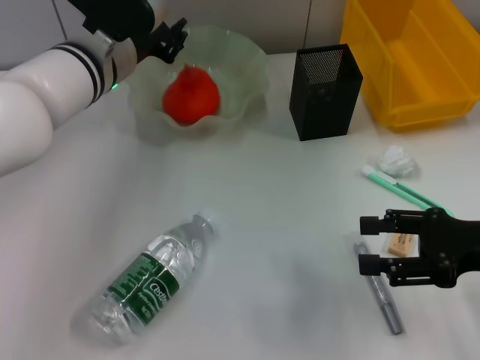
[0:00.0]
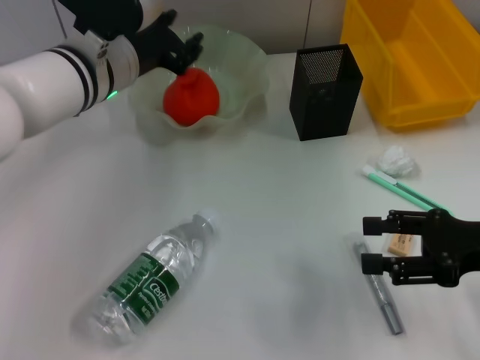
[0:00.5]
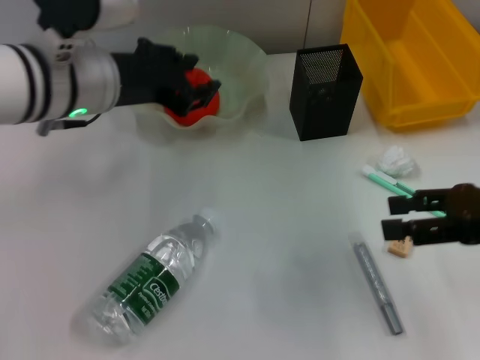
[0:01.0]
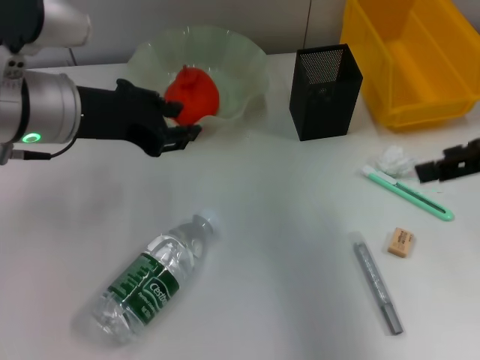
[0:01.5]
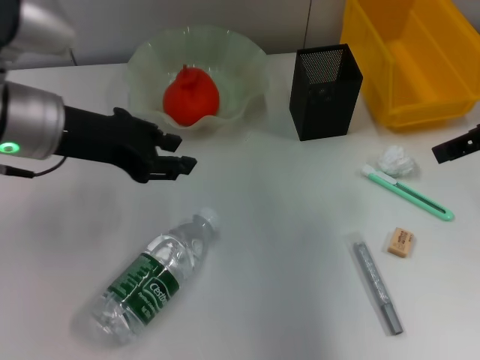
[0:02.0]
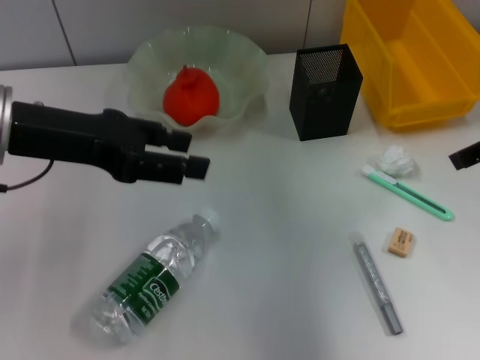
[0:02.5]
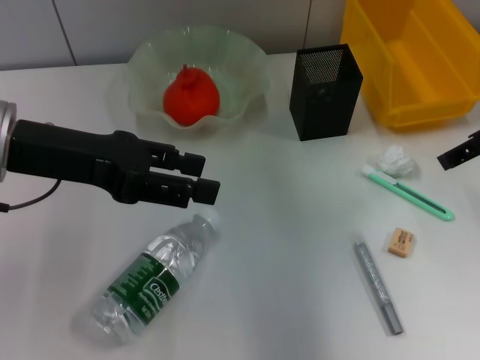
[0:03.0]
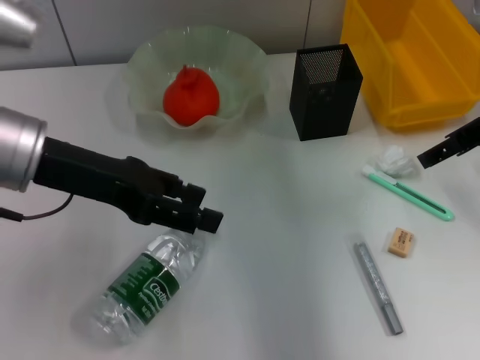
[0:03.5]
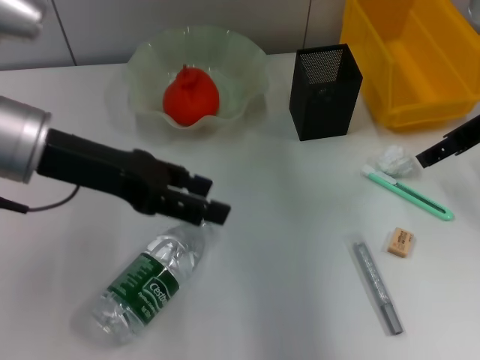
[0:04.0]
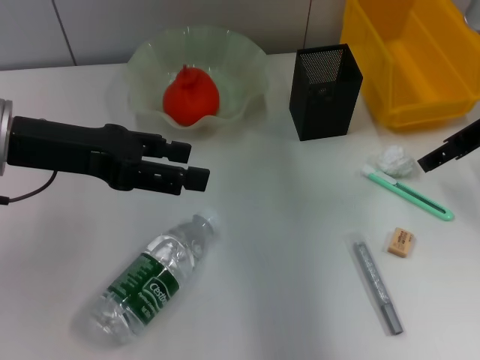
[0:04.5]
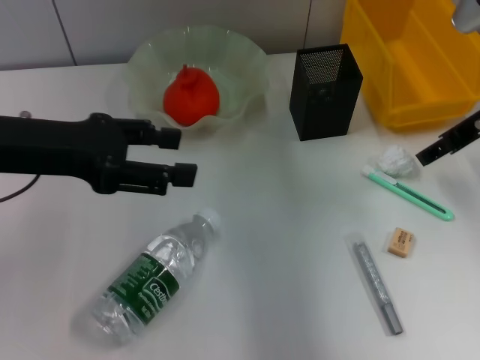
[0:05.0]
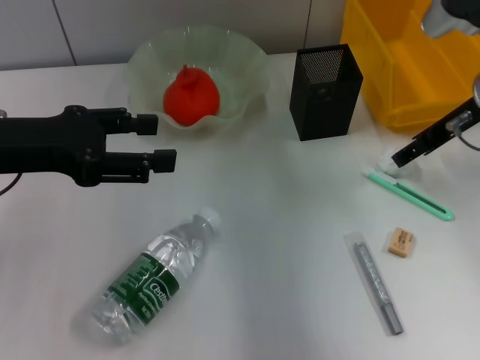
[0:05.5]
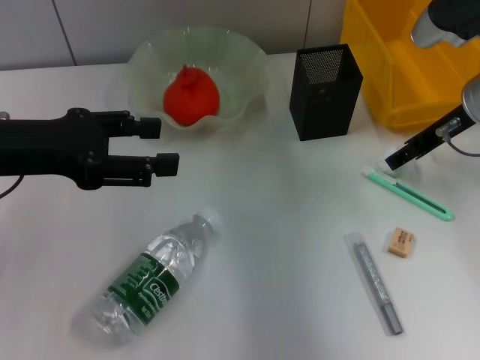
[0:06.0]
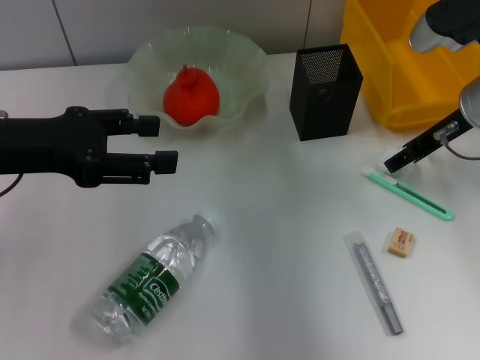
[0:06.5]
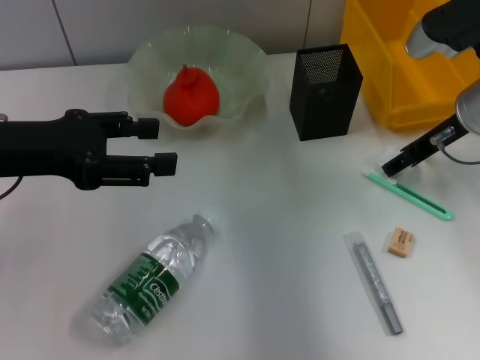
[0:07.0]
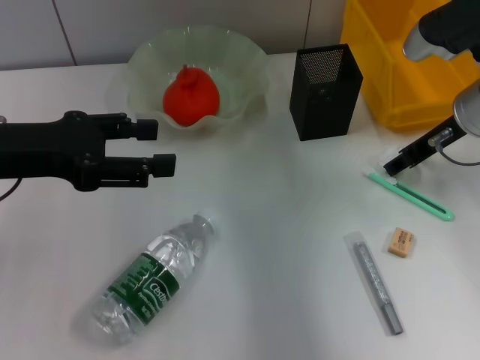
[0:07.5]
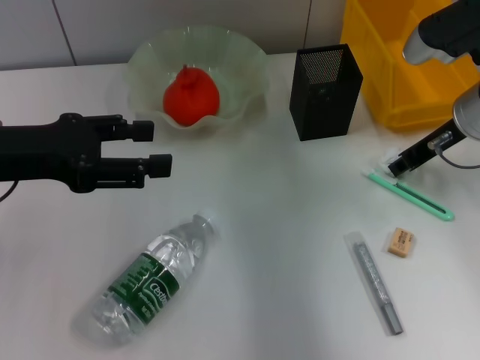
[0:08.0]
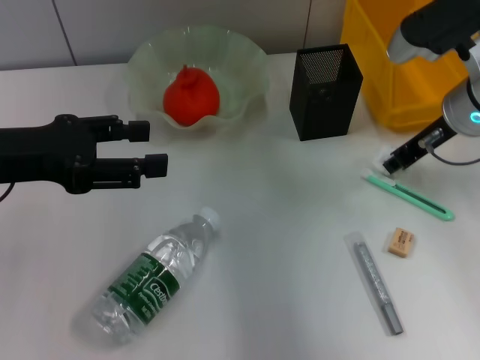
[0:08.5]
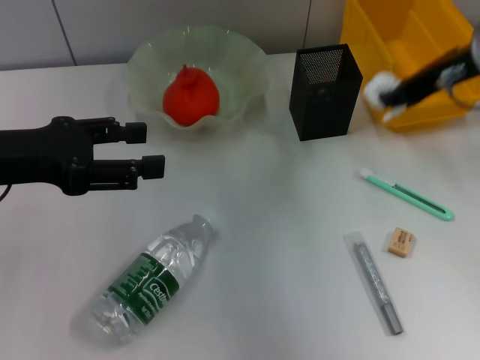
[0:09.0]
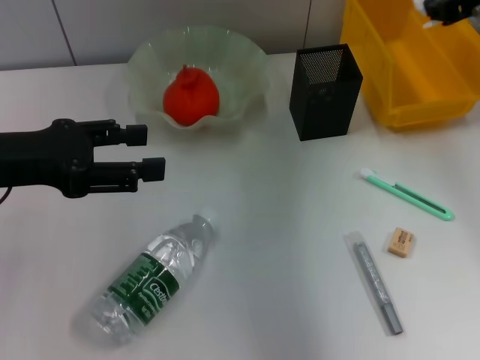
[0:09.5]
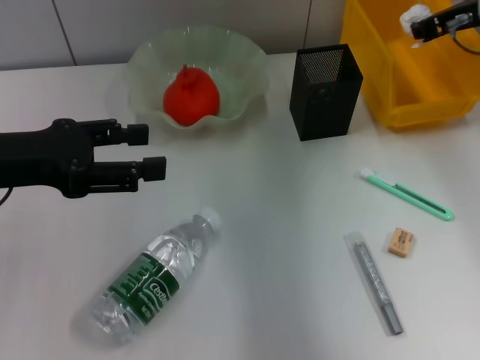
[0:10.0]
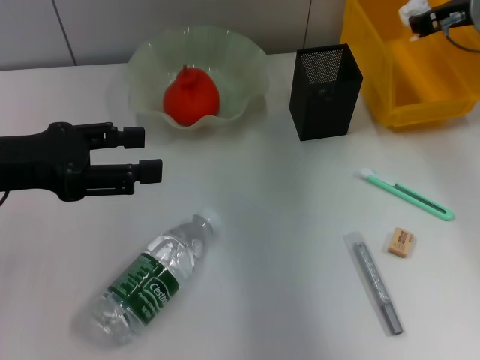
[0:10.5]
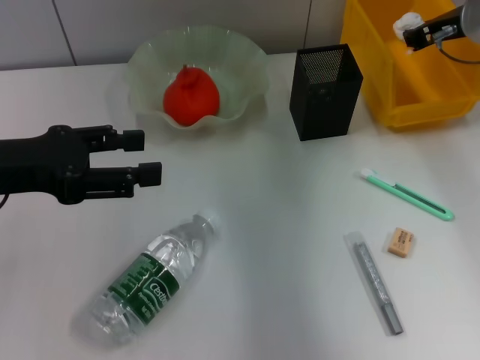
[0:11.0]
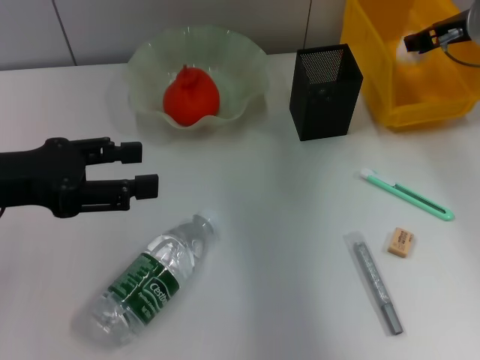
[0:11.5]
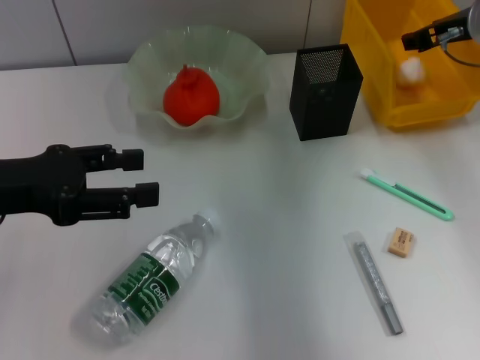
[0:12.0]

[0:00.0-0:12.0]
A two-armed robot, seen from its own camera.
Step, 0:00.5 to 0:08.0: Grab the paper ball with the right hand.
Step, 0:08.5 to 0:11.5: Place the paper ball into the trash can with the right hand.
0:00.0 to 0:02.0: The left gripper is displaced backward and to the left by about 10 cm, while the right gripper travels upward and forward by about 15 cm.
0:02.0 to 0:04.0: The right gripper moves downward and forward, approximately 10 cm. The left gripper opens.
0:04.0 to 0:06.0: The right gripper moves about 5 cm, while the left gripper shifts approximately 5 cm to the left.
0:06.0 to 0:08.0: The right gripper closes.
0:08.0 to 0:10.0: The right gripper heads upward, covering about 5 cm.
0:10.0 to 0:12.0: The right gripper opens up.

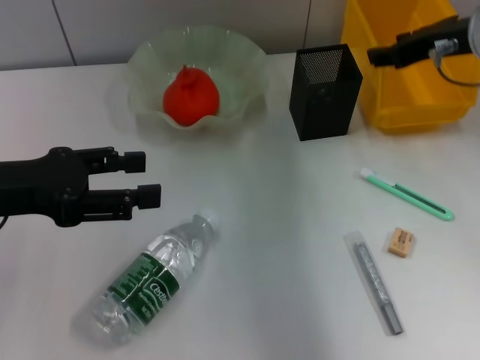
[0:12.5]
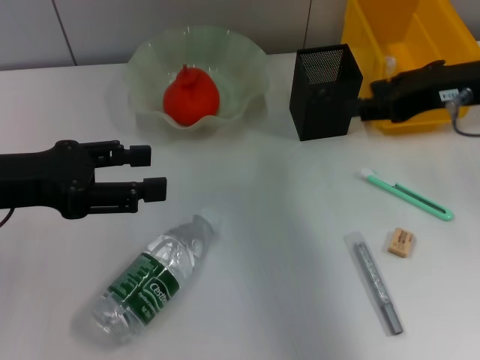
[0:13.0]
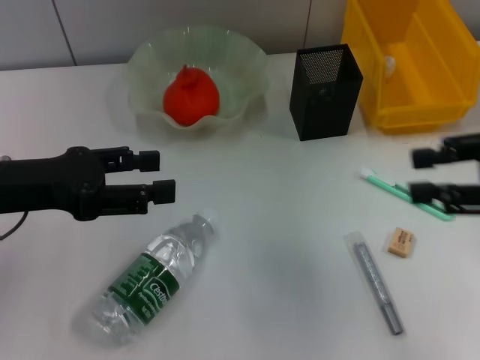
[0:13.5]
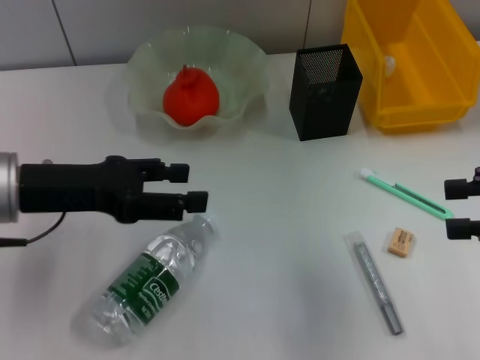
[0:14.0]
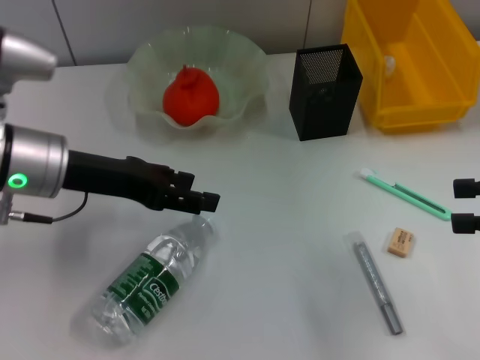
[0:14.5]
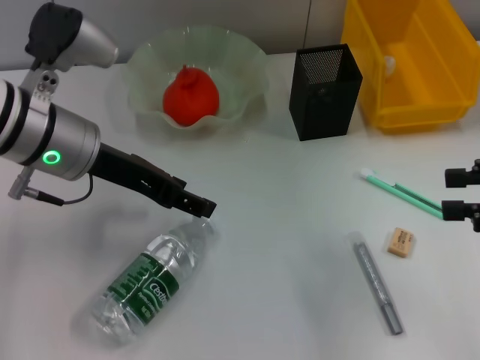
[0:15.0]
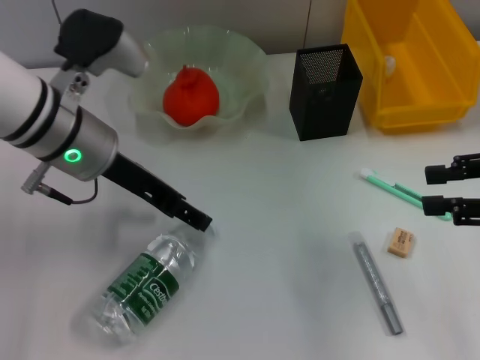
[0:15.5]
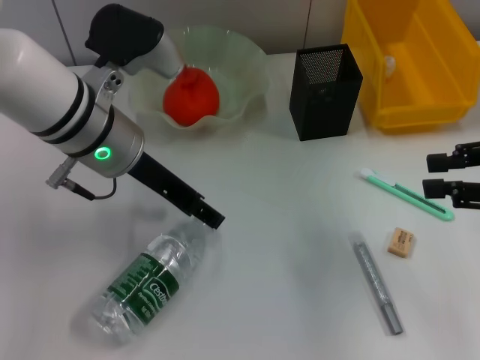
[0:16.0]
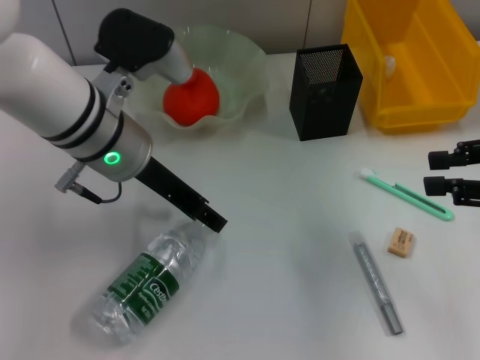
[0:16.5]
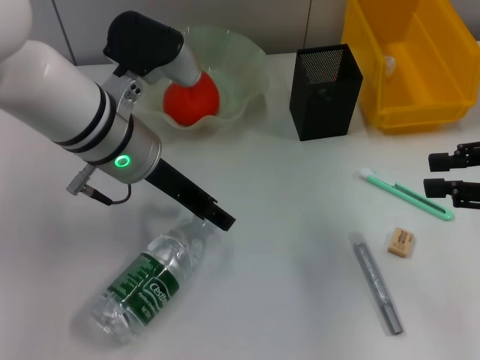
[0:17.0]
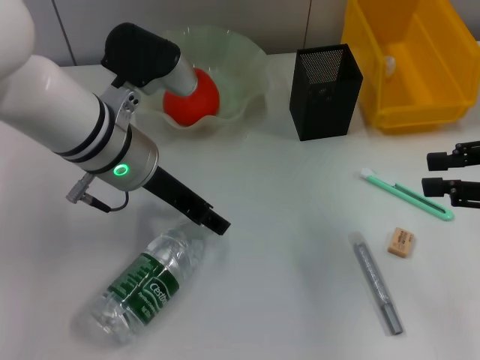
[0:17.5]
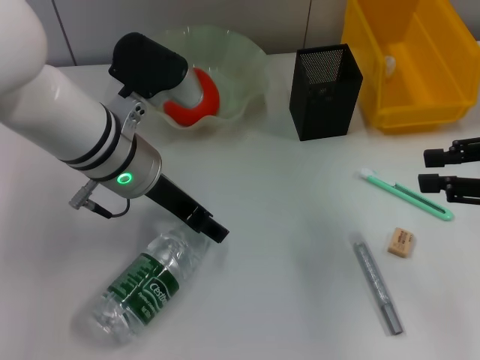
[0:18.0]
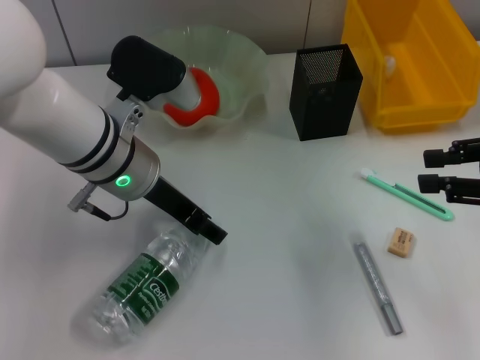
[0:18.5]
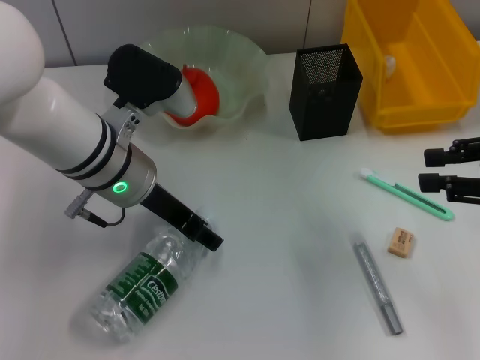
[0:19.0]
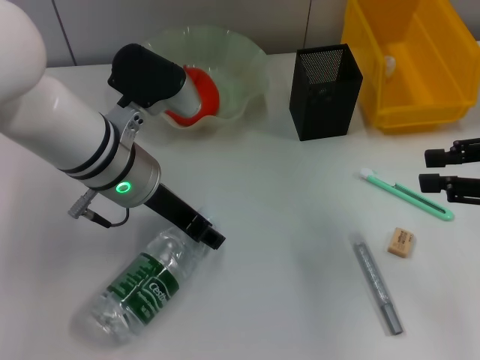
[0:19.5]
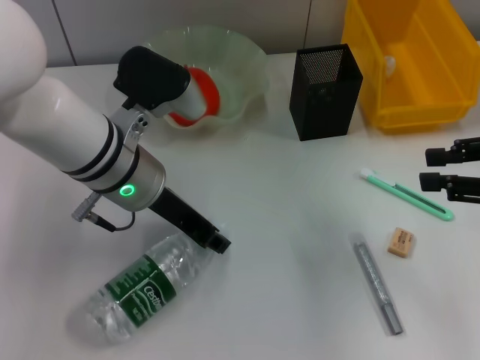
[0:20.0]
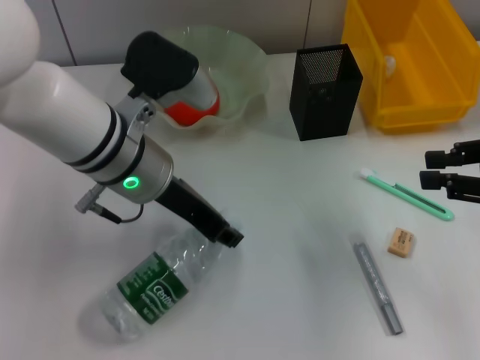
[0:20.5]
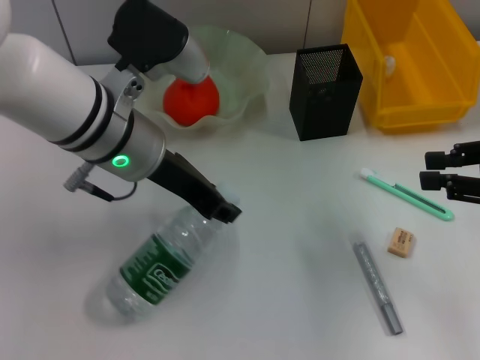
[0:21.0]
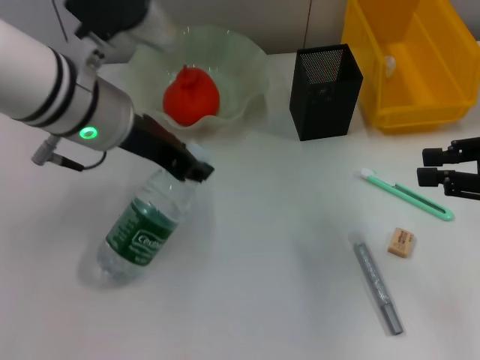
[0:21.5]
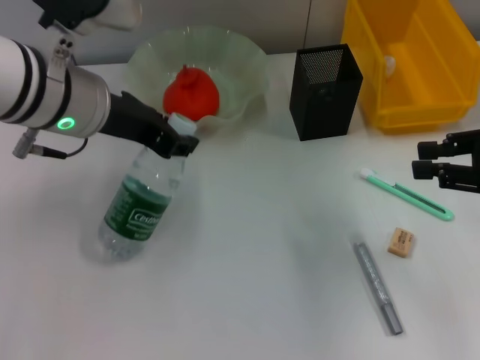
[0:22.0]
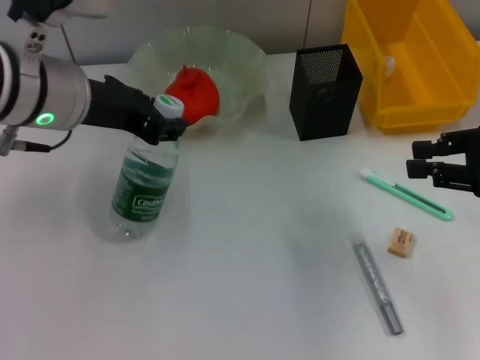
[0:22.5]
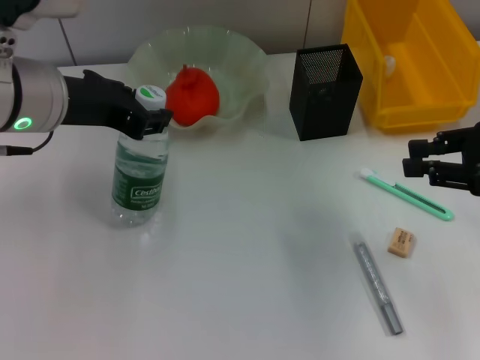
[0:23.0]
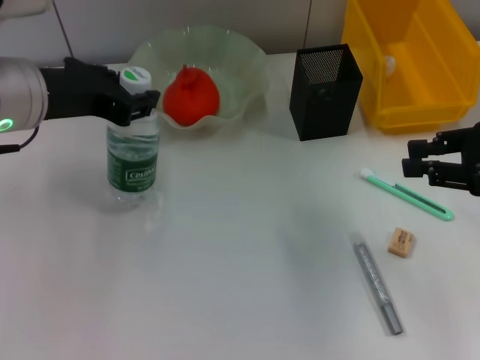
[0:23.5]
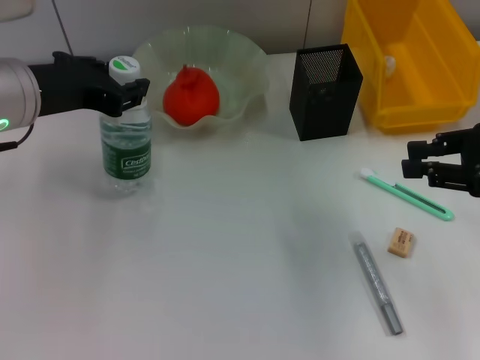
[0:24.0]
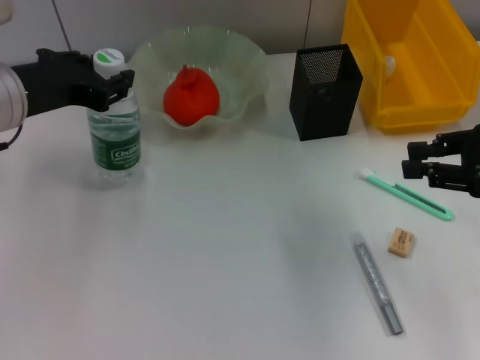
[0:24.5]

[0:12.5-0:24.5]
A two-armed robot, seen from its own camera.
Step, 0:12.5 to 0:20.0: Grab the water bottle with the left hand.
0:12.5 to 0:14.5: The right gripper moves backward and to the right, some 20 cm. Meanwhile the left gripper heads to the right and forward, covering some 10 cm.
0:14.5 to 0:16.5: The left gripper heads to the right, covering some 10 cm.
0:16.5 to 0:18.5: The grippers make only small movements.
0:18.5 to 0:20.5: The left gripper closes up.
0:20.5 to 0:22.5: The left gripper goes about 10 cm upward and to the left.
0:22.5 to 0:24.5: The left gripper is displaced to the left by approximately 5 cm.

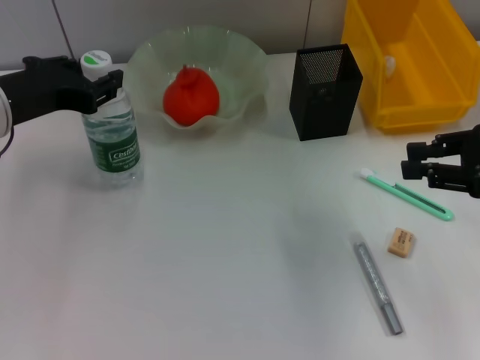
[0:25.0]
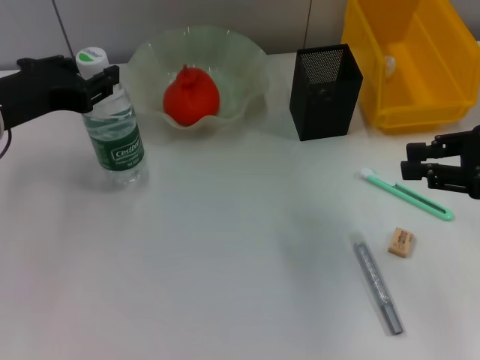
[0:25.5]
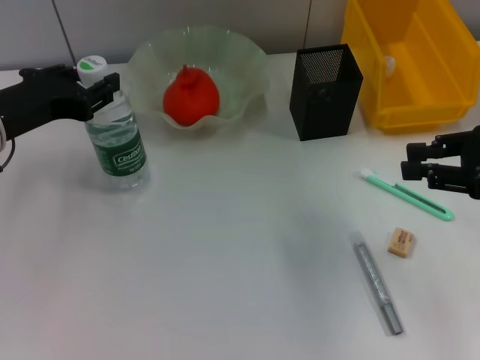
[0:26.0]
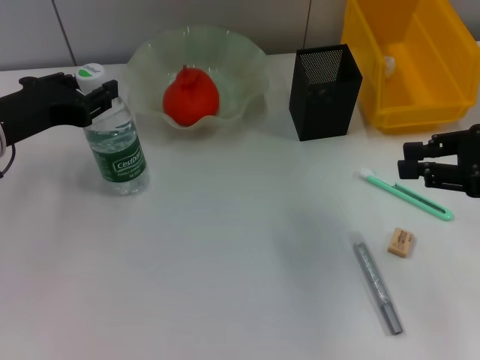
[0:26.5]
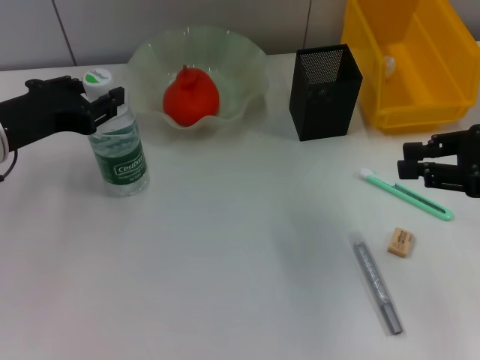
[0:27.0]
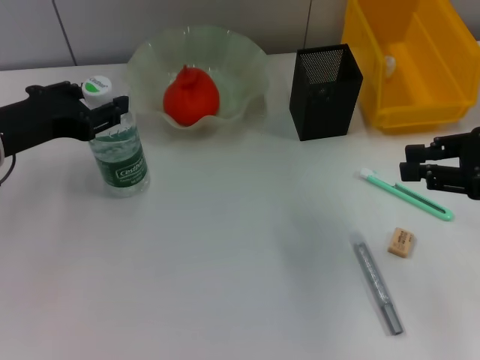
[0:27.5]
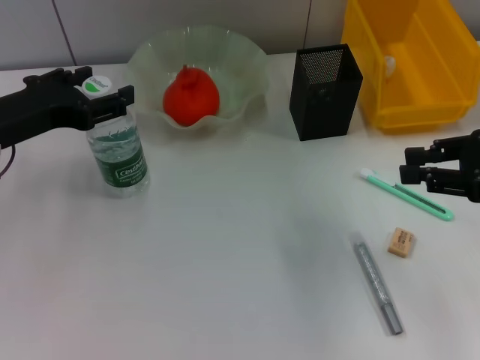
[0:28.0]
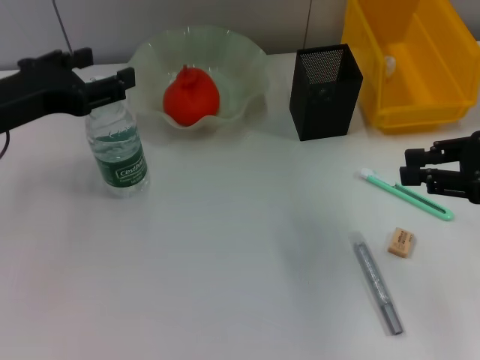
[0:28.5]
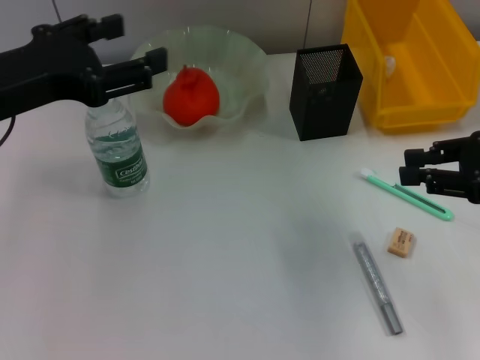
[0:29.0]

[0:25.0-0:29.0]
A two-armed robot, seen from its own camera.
Step, 0:25.0 to 0:28.5: Place the water bottle on the table with the left hand.
0:25.0 to 0:27.0: The grippers stay close to where they were, moving slightly.
0:27.0 to 0:29.0: The left gripper moves upward, approximately 5 cm, and opens.
